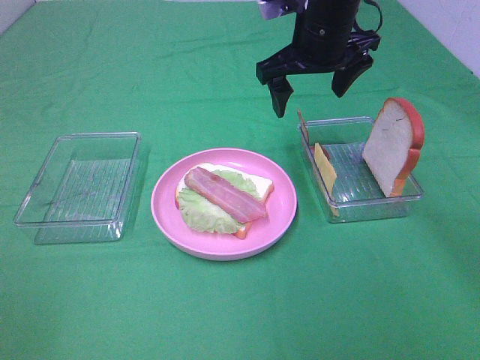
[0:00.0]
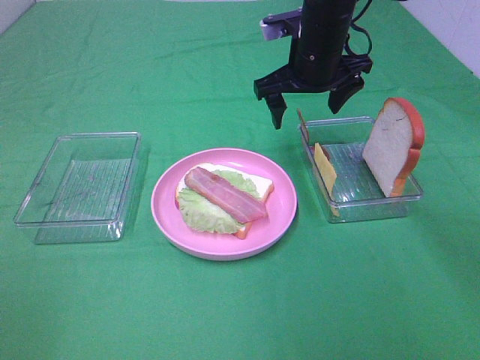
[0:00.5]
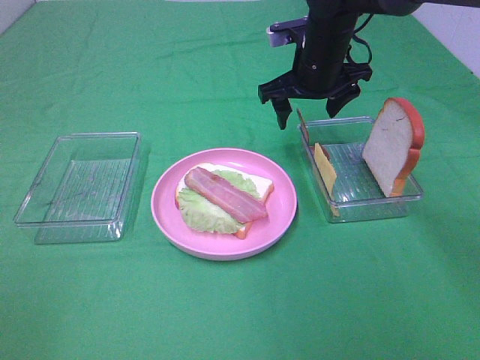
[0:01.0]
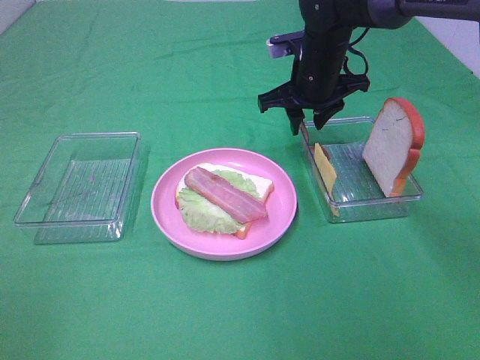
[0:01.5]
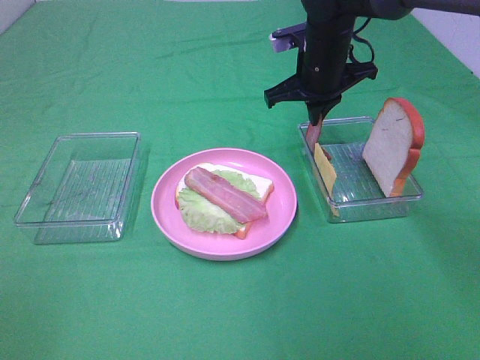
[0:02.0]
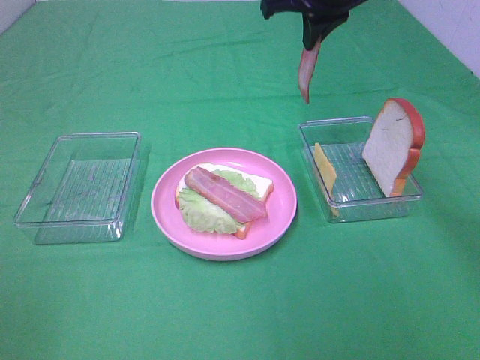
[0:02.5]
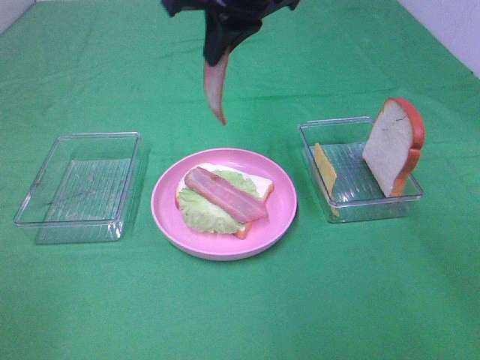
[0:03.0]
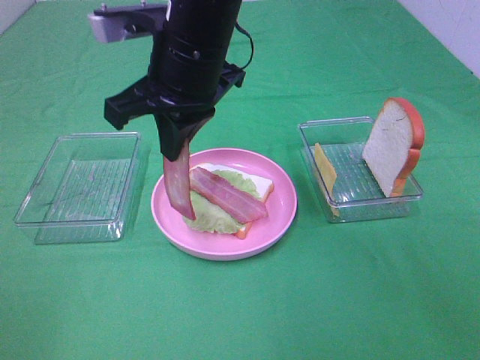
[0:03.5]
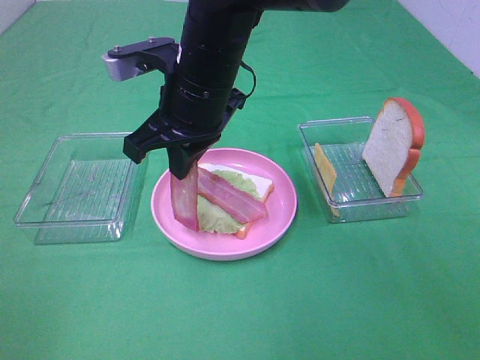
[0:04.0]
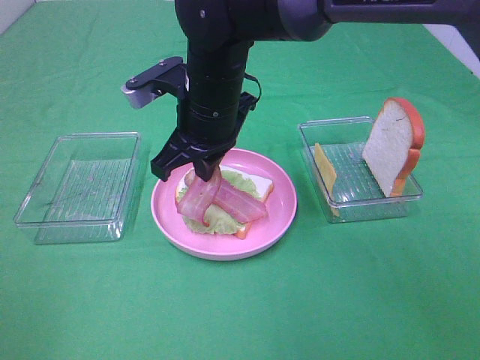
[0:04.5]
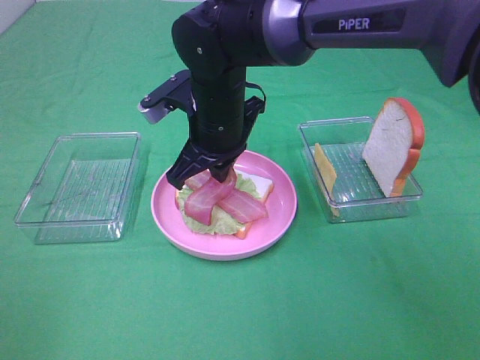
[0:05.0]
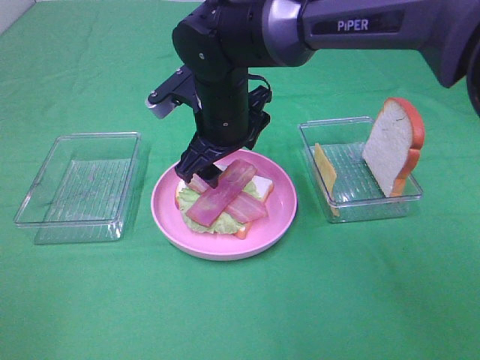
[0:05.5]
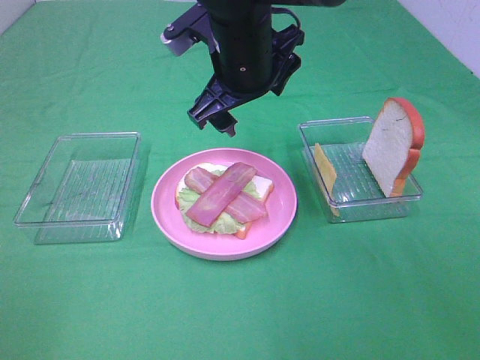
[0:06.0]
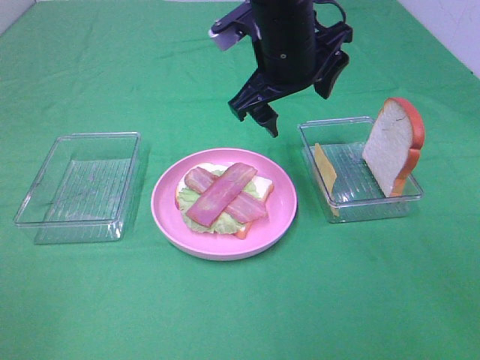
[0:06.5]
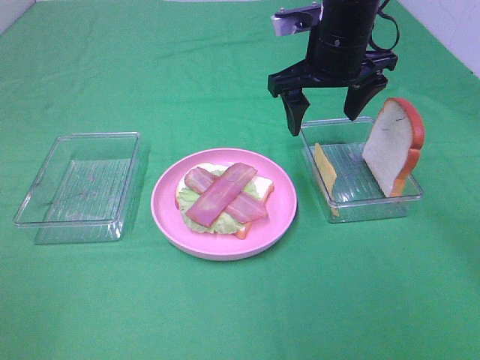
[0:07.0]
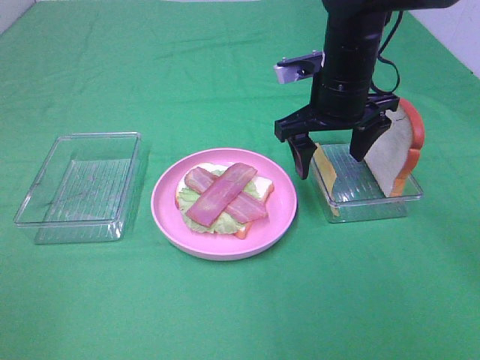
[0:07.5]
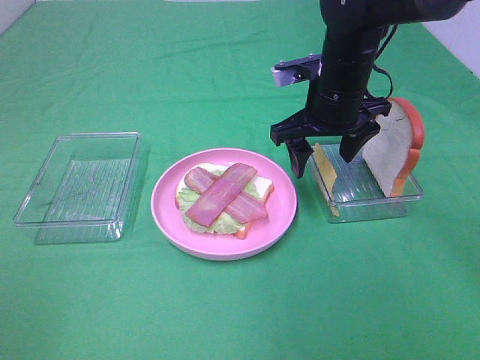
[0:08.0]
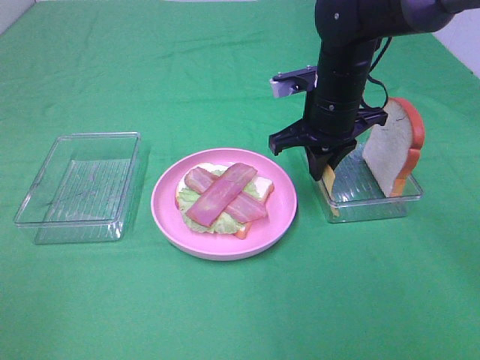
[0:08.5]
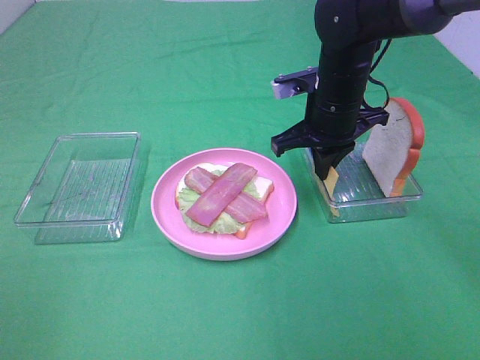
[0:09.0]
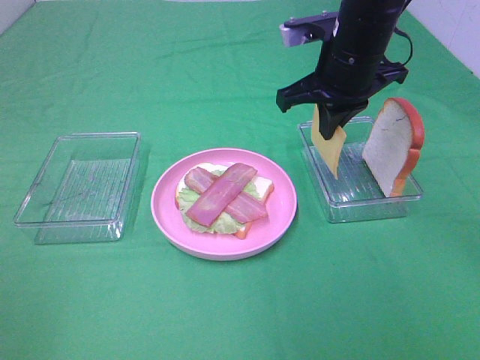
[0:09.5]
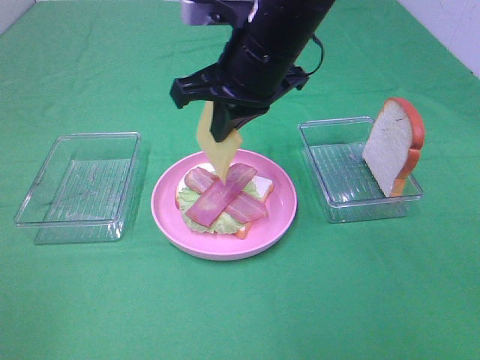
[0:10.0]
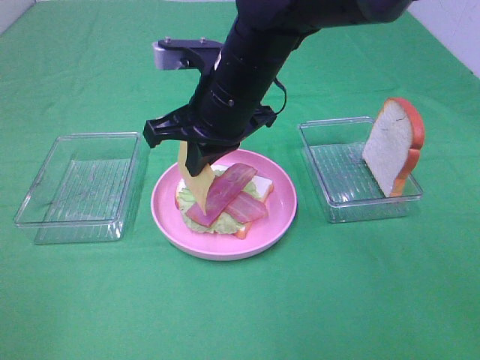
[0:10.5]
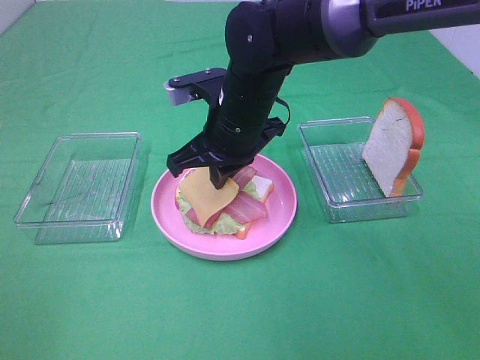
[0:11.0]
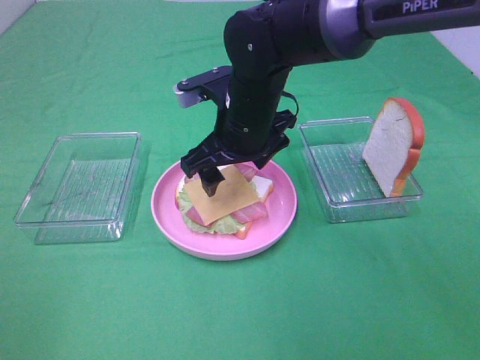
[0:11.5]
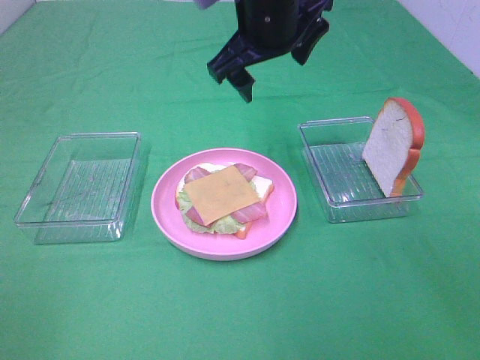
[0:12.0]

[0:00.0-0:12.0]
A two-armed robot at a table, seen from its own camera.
Task of the whole recording: Make sandwiches.
Step, 0:02.0 to 0:05.5: Right hand:place bacon on bacon.
Step, 0:06.0 to 0:08.5: Right hand:grab the cheese slice.
Step, 0:09.0 to 0:11.5: Right hand:place the cheese slice on top of the bacon.
0:00.0 to 0:02.0: The right gripper moves downward, about 5 cm, and closes.
0:02.0 to 0:04.0: The right gripper is displaced to the left and backward by about 20 cm.
0:04.0 to 0:06.0: The right gripper ends up about 5 cm from where it was, and opens up.
0:06.0 to 0:08.0: The right gripper moves to the right and downward, some 15 cm.
0:08.0 to 0:10.0: The right gripper shifts roughly 15 cm to the left, upward and backward, and closes up.
0:10.0 to 0:12.0: The right gripper moves forward, about 5 cm, moves approximately 10 cm downward and comes back, and opens up.

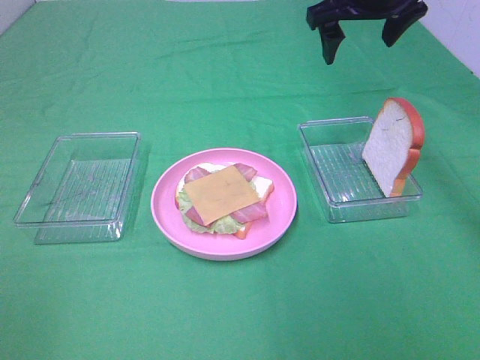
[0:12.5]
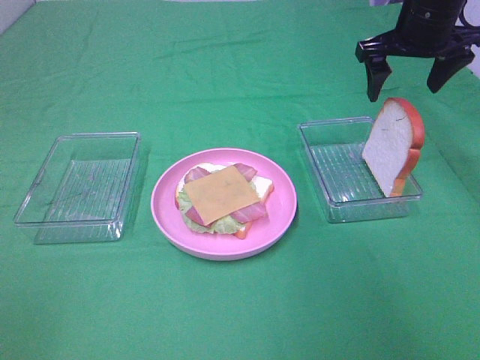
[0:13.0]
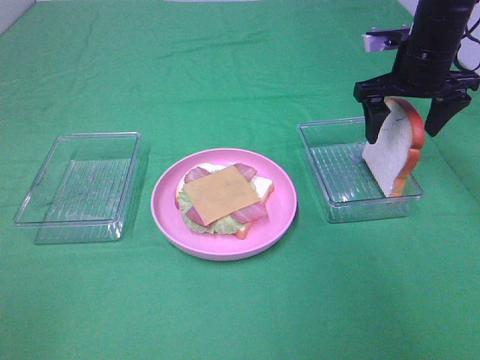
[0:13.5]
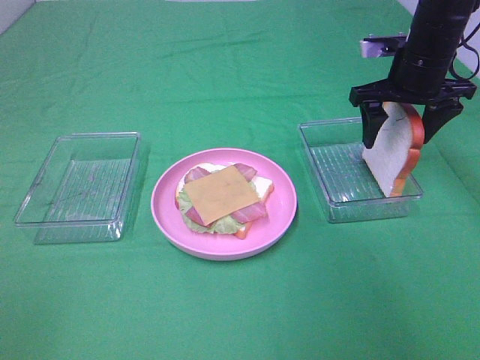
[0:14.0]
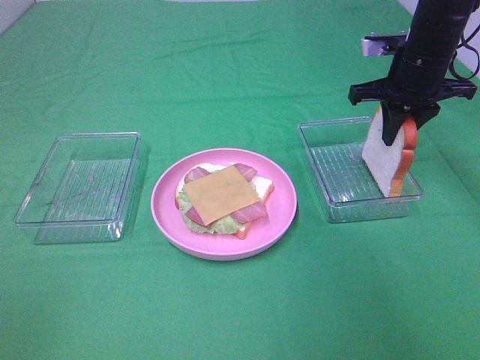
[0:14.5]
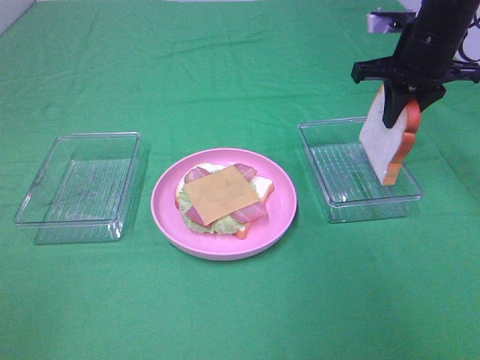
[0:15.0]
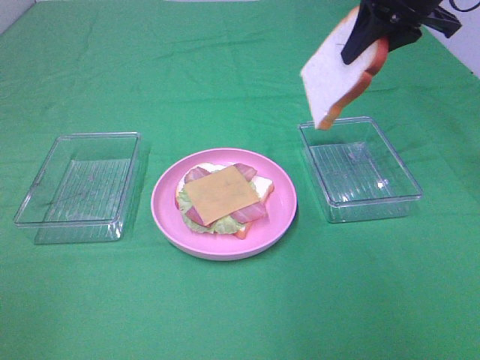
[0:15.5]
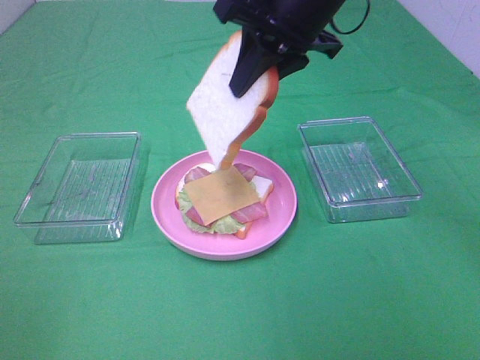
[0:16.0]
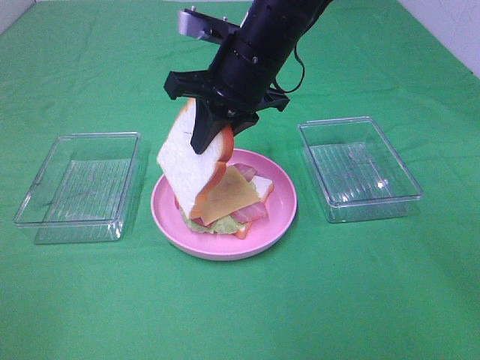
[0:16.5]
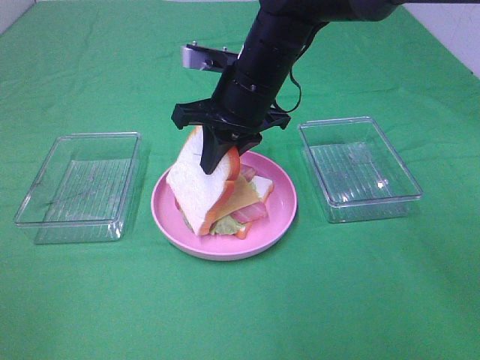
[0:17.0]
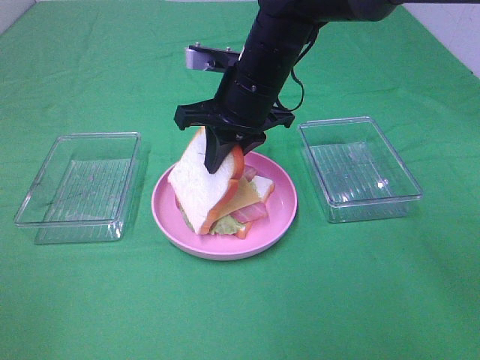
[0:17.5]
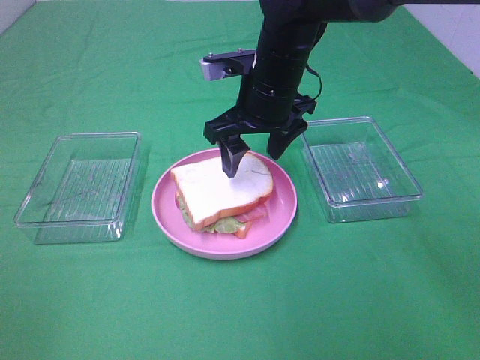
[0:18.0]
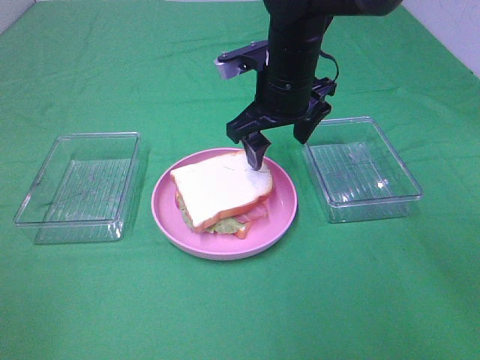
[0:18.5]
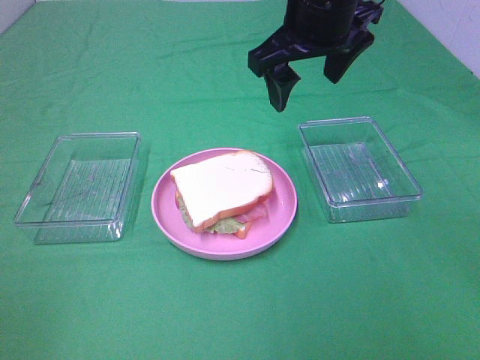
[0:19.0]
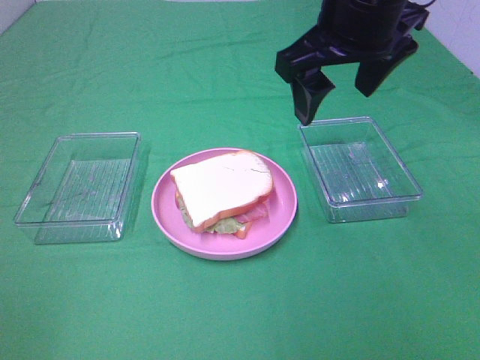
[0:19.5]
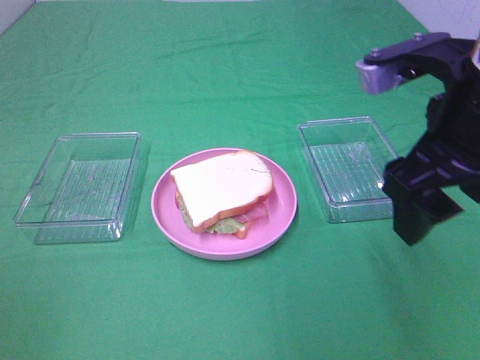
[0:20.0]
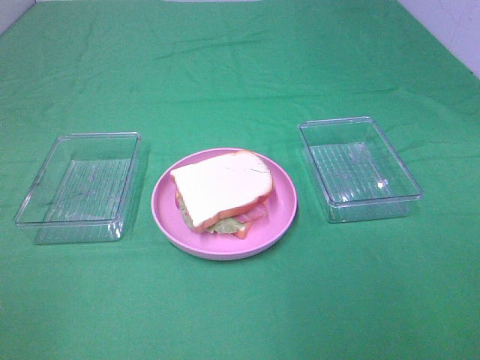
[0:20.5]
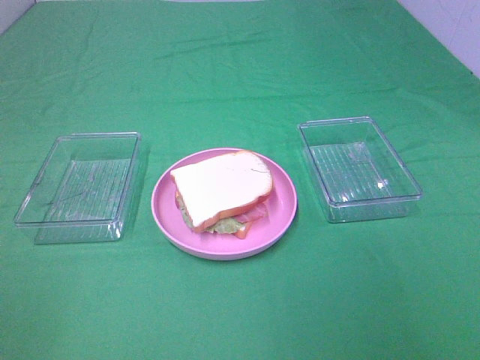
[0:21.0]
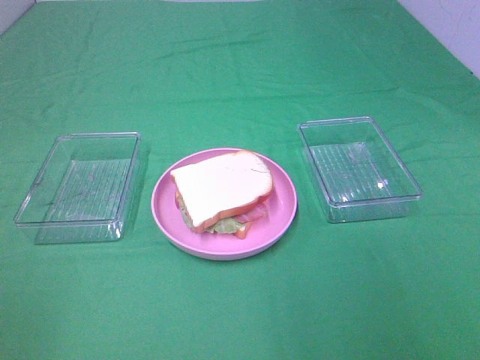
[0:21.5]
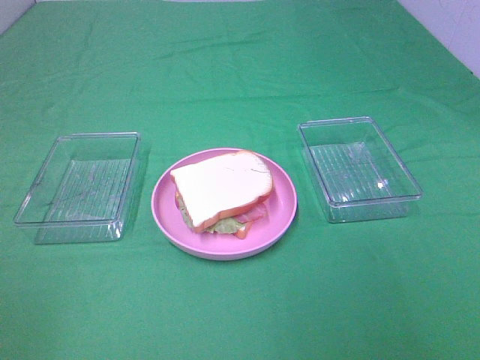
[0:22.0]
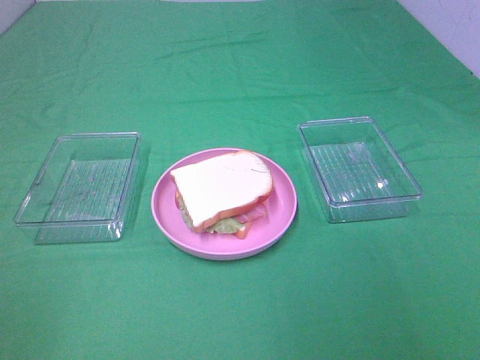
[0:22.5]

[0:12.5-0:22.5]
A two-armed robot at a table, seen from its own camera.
Task of the whole recording: Make sandwiches.
Step, 0:12.5 to 0:14.5: Right hand:grab the bread slice.
Step, 0:15.0 to 0:18.0: Right hand:place the bread slice on the cheese slice.
0:12.5 to 0:14.5: The right gripper goes some 10 cm downward and to the right, and closes up.
0:14.5 to 0:16.5: The right gripper shifts approximately 20 cm to the left.
0:16.5 to 0:18.5: The right gripper opens.
0:18.5 to 0:20.5: The right gripper heads backward and to the right, covering roughly 35 cm.

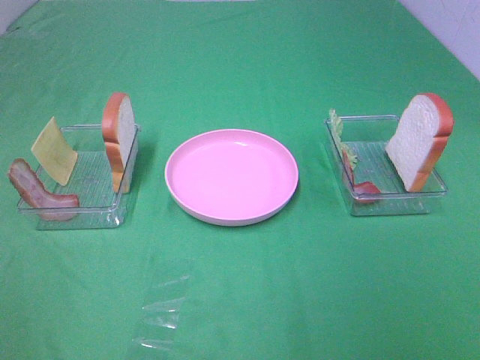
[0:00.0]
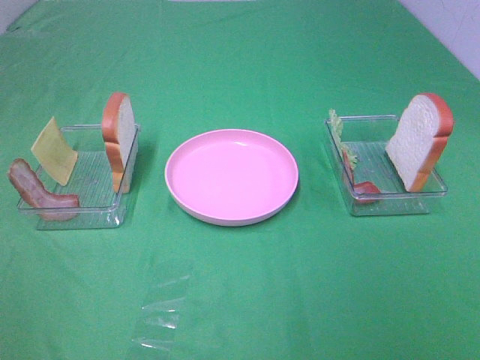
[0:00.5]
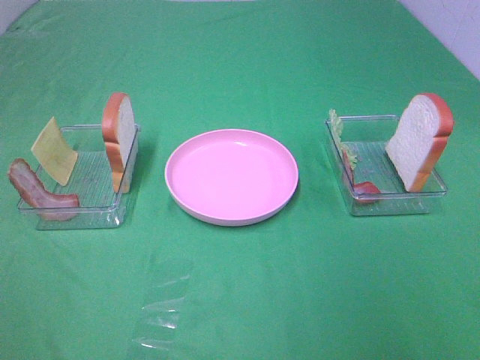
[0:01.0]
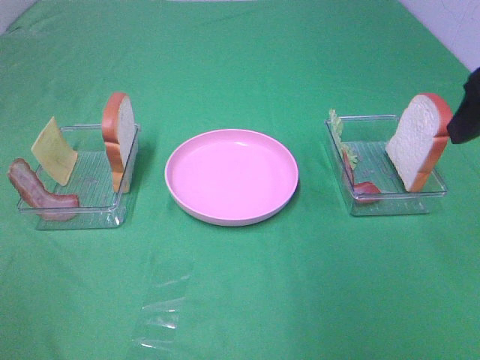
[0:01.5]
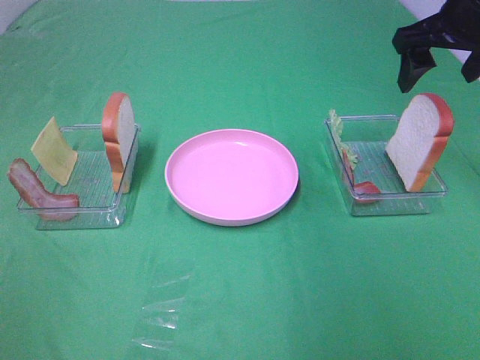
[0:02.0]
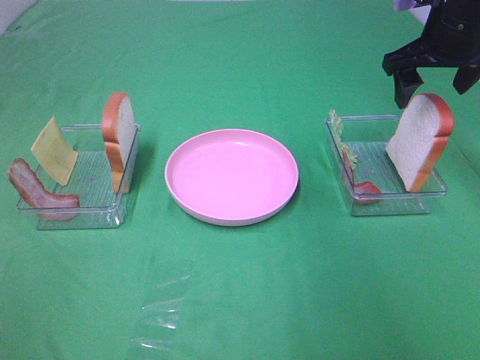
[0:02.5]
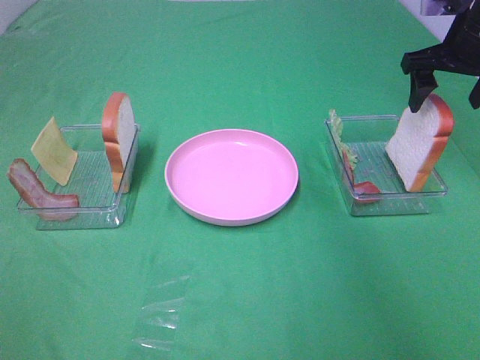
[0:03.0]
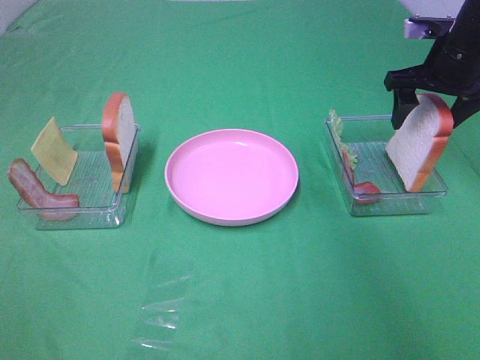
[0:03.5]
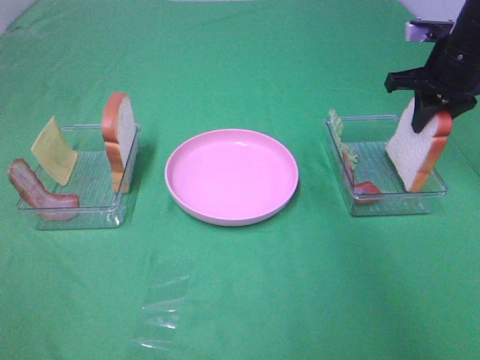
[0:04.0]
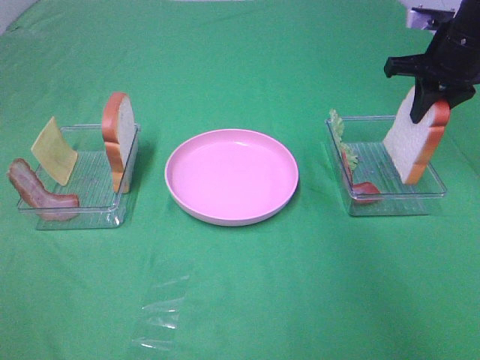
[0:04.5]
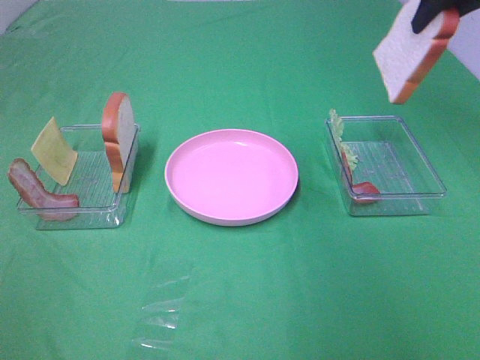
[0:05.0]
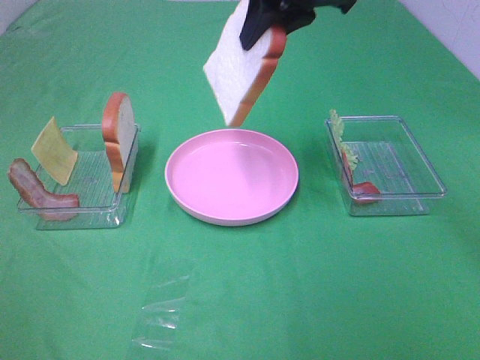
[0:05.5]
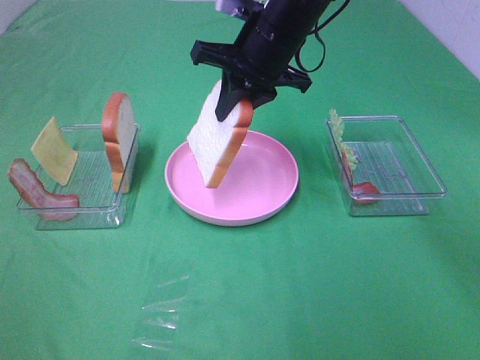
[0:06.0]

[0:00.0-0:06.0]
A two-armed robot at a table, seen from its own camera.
Task of the whole recording: Make sandwiches.
Step, 0:00.0 to 0:04.0: Right hand:grab the bread slice.
0:00.0 to 0:02.0: The right gripper travels forward by approximately 40 cm.
0:02.0 to 0:04.0: The right gripper goes roughly 10 cm downward, and closes its fingers.
0:04.0 to 0:06.0: The right gripper goes roughly 25 cm to the left.
